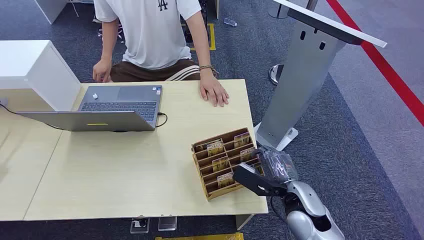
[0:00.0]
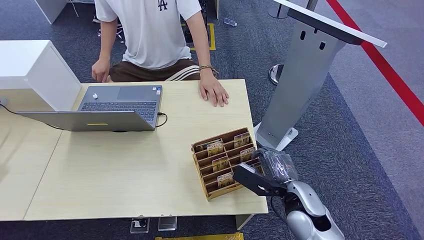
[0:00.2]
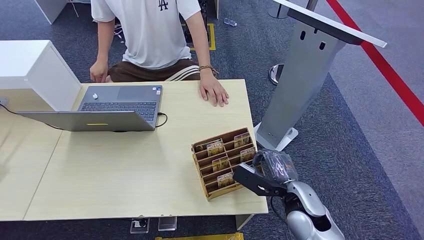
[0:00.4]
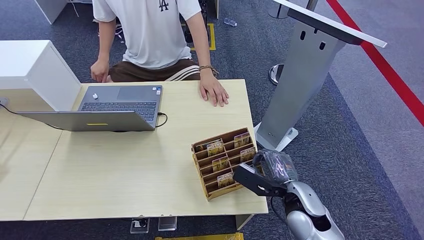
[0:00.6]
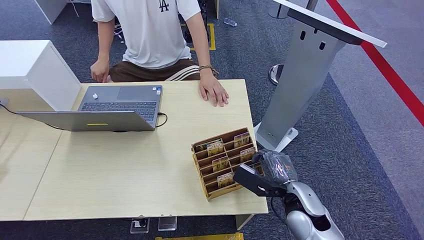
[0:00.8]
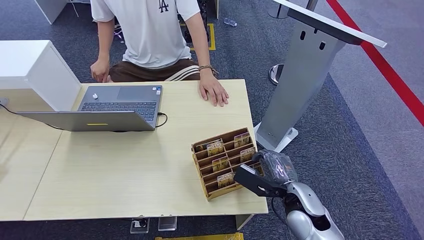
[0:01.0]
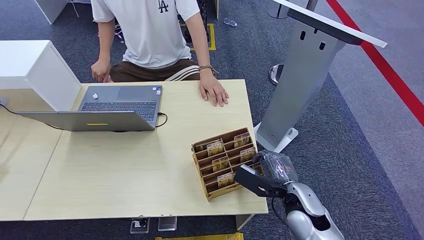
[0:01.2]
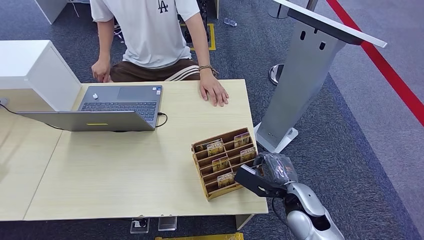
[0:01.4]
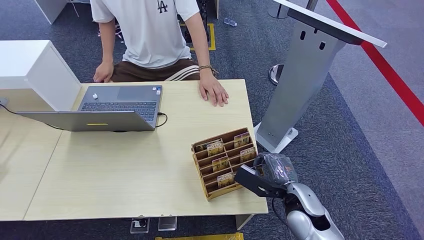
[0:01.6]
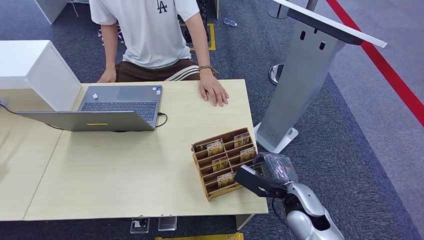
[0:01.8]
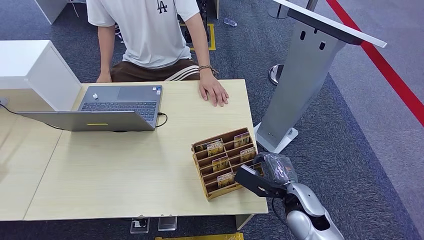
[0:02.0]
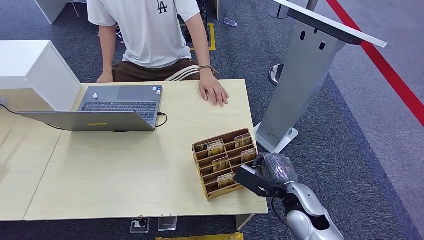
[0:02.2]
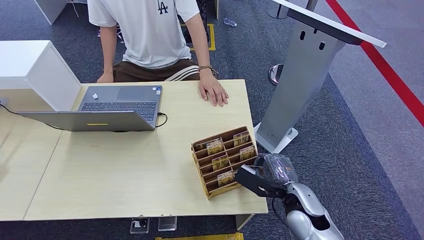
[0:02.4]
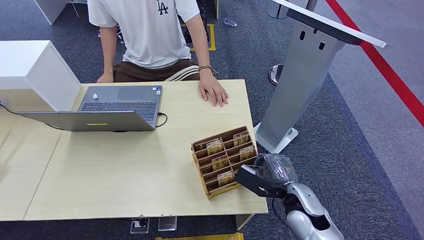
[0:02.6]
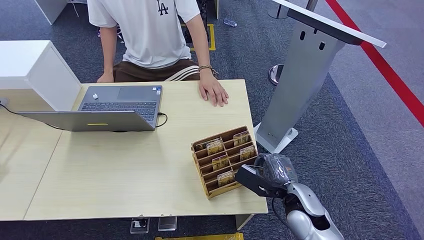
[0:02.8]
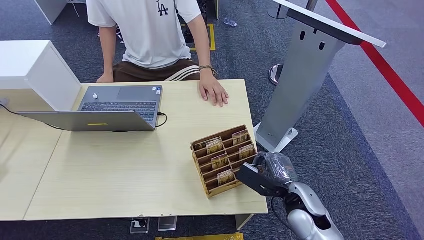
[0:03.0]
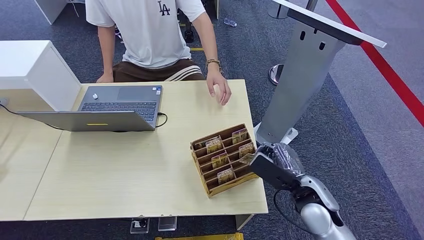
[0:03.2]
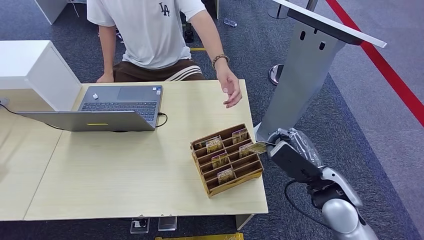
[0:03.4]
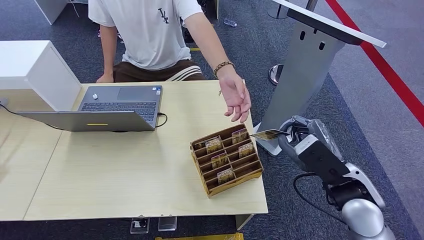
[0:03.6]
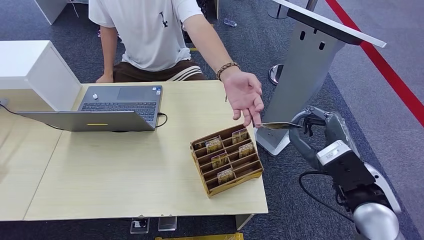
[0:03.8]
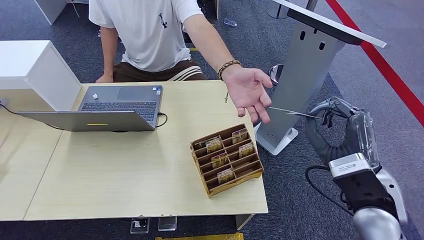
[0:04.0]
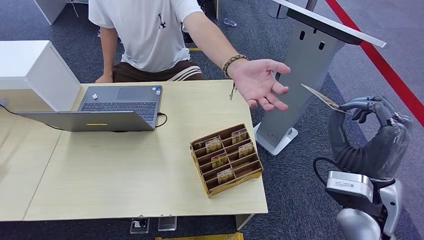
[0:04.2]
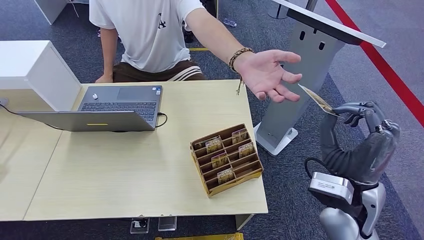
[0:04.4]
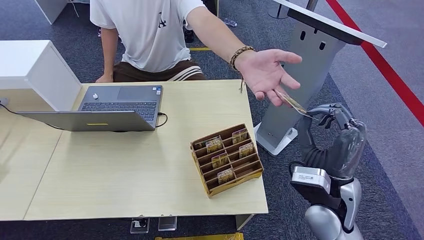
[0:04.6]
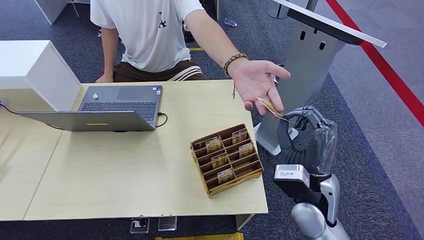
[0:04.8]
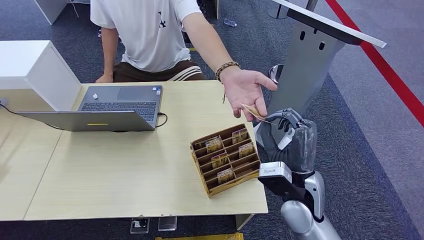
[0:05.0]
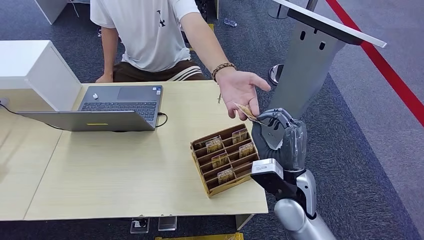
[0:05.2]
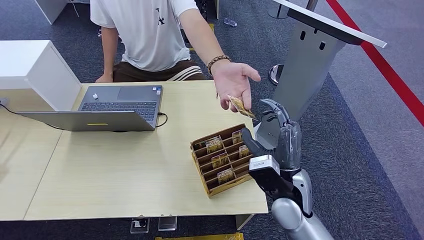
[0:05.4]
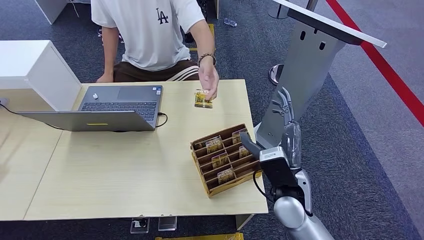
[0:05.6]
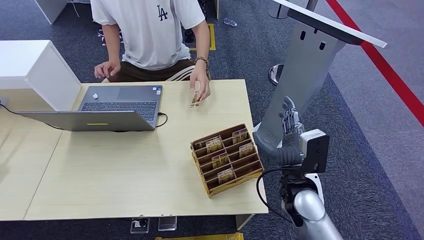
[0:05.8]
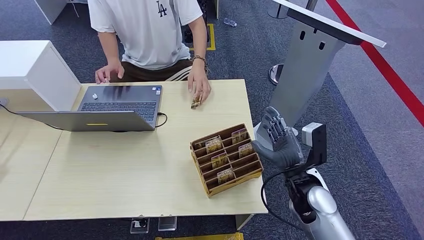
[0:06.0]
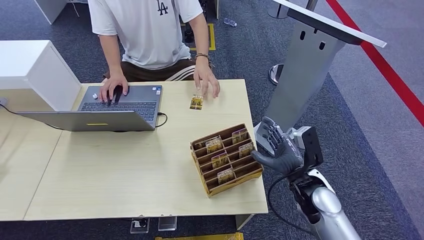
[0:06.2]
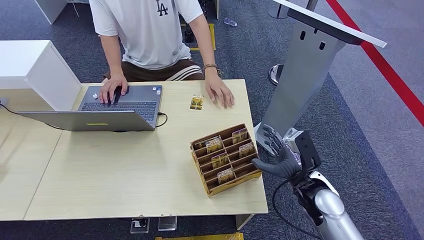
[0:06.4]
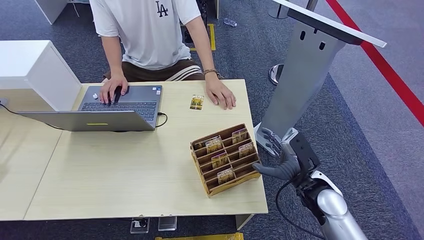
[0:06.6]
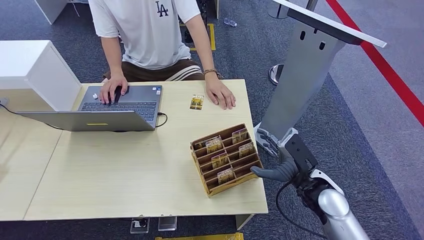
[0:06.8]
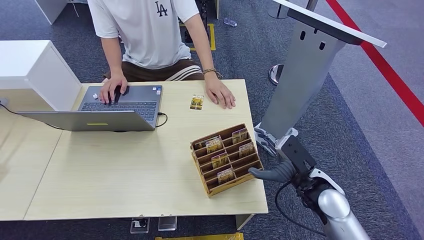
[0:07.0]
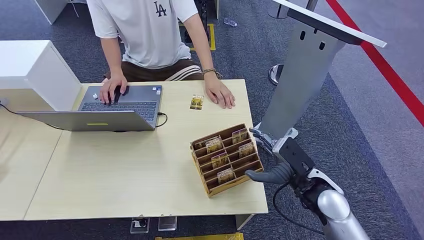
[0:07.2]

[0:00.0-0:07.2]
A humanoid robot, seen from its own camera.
Step, 0:00.0 to 0:03.2: Pick up the key card from the card box.
Step, 0:03.4 to 0:07.0: Hand the key card to the target.
0:01.4 to 0:02.8: Both hands stay put.
0:02.8 to 0:04.4: The right hand shifts about 15 cm upward.
0:04.4 to 0:05.8: The right hand travels downward and to the left by approximately 10 cm.
0:05.8 to 0:07.2: The right hand heads to the right, covering roughly 5 cm.
